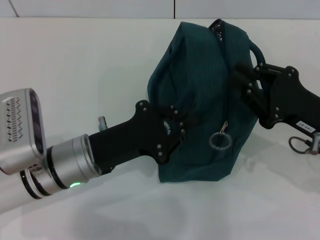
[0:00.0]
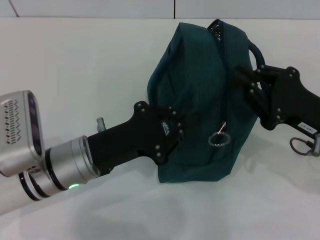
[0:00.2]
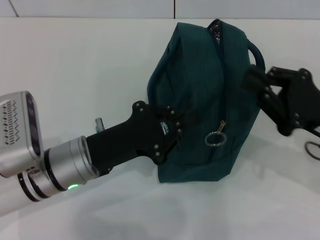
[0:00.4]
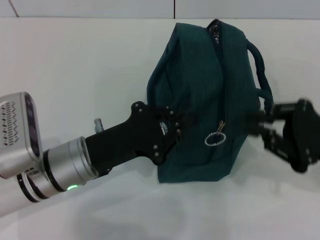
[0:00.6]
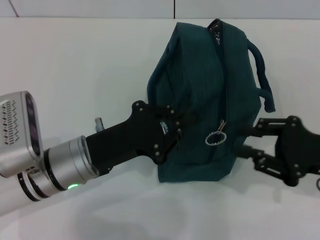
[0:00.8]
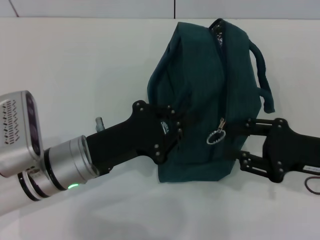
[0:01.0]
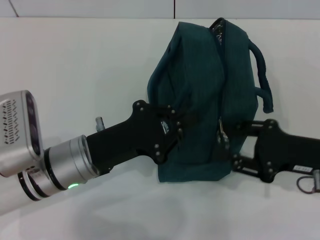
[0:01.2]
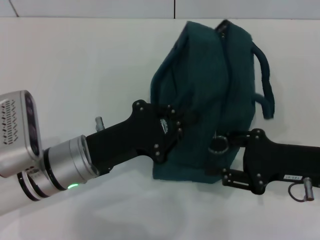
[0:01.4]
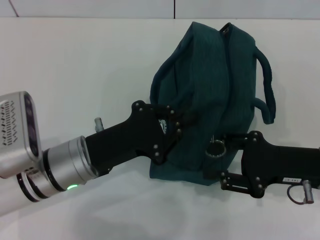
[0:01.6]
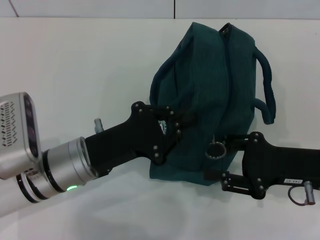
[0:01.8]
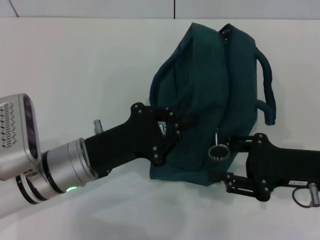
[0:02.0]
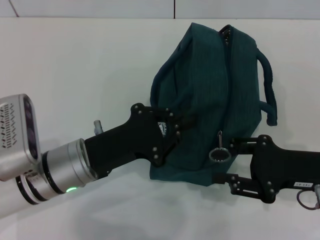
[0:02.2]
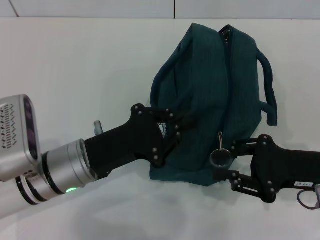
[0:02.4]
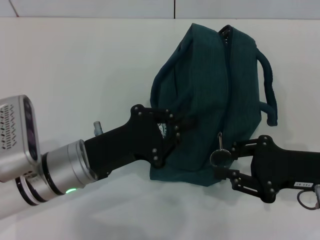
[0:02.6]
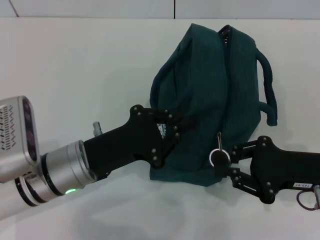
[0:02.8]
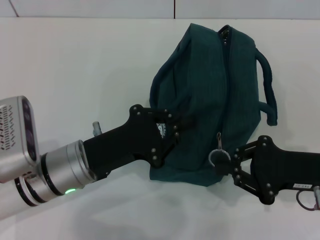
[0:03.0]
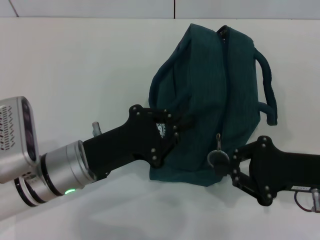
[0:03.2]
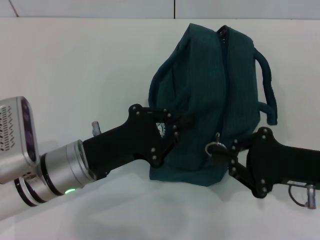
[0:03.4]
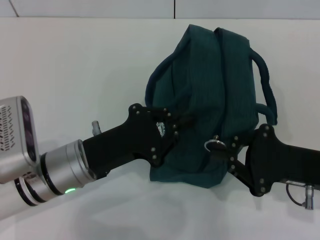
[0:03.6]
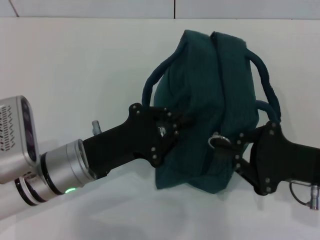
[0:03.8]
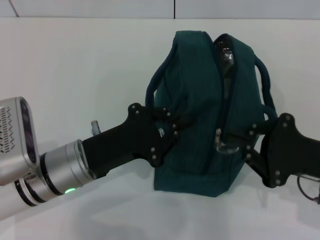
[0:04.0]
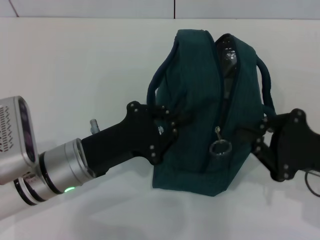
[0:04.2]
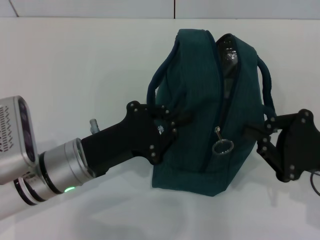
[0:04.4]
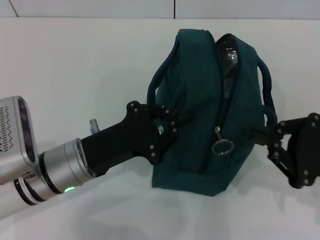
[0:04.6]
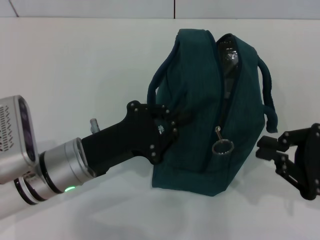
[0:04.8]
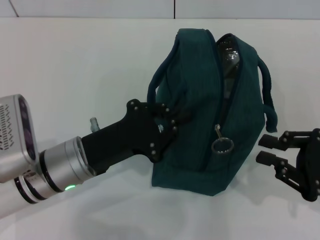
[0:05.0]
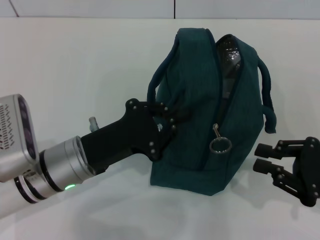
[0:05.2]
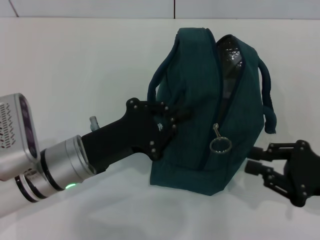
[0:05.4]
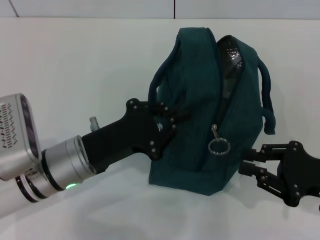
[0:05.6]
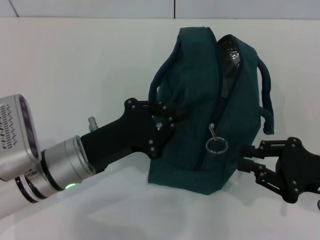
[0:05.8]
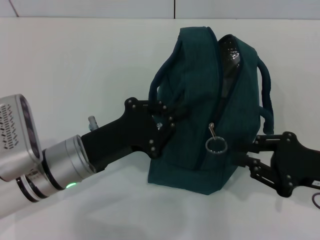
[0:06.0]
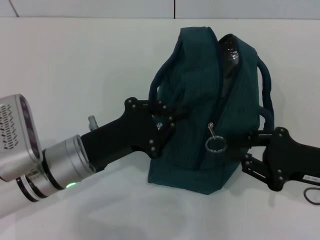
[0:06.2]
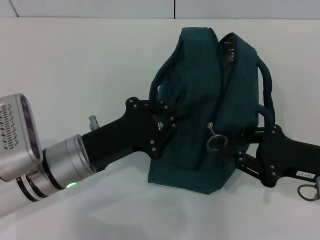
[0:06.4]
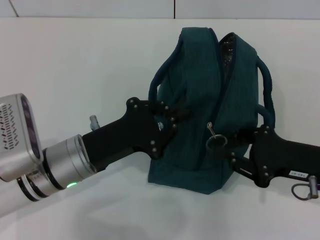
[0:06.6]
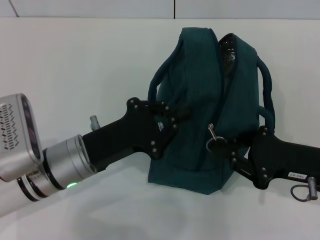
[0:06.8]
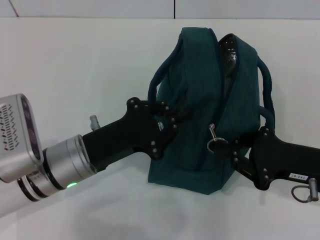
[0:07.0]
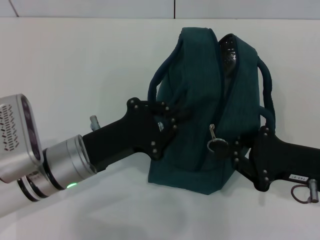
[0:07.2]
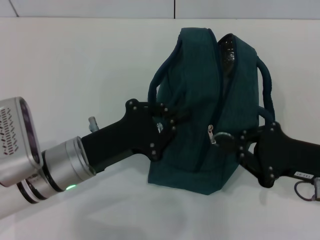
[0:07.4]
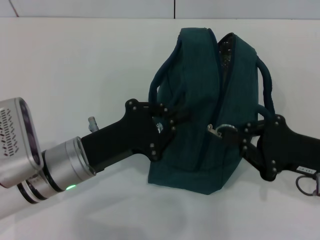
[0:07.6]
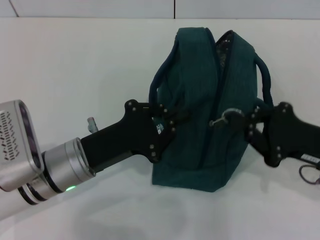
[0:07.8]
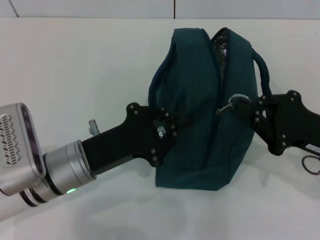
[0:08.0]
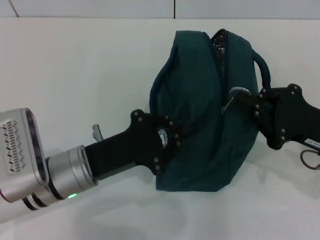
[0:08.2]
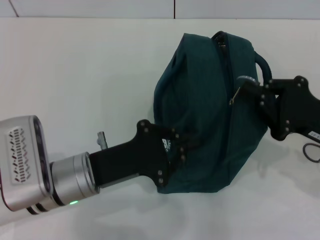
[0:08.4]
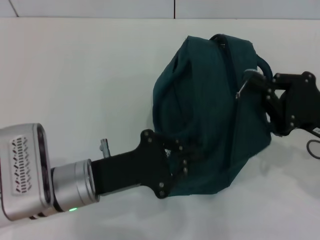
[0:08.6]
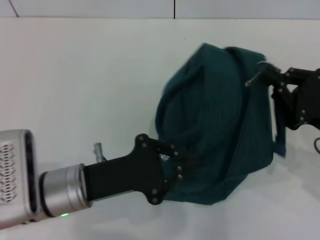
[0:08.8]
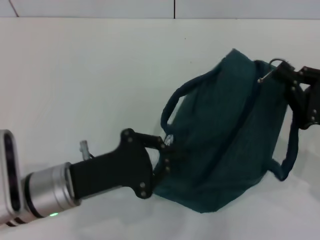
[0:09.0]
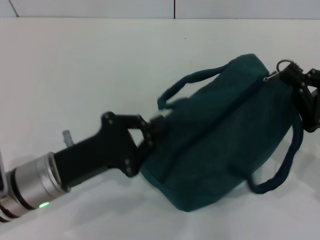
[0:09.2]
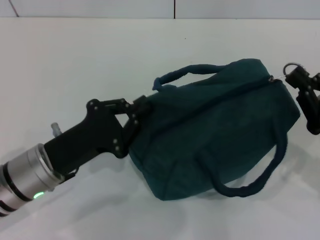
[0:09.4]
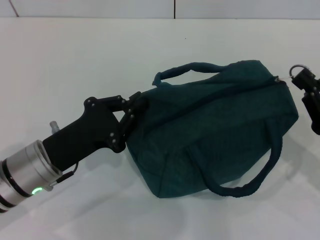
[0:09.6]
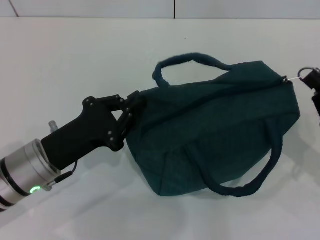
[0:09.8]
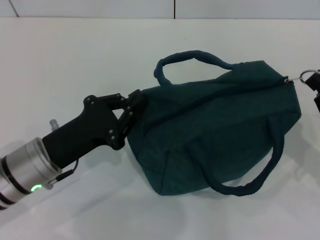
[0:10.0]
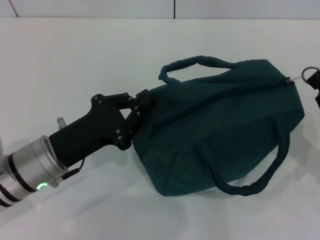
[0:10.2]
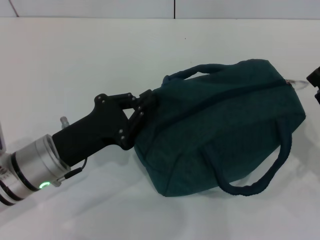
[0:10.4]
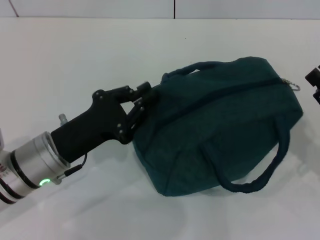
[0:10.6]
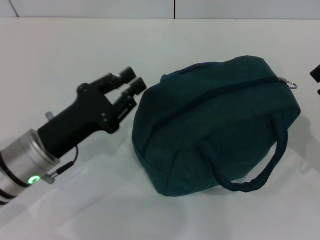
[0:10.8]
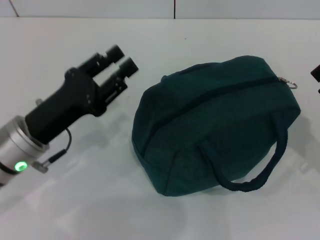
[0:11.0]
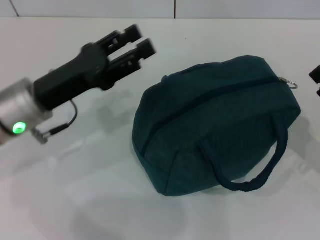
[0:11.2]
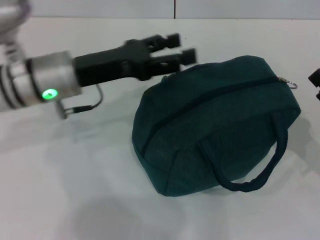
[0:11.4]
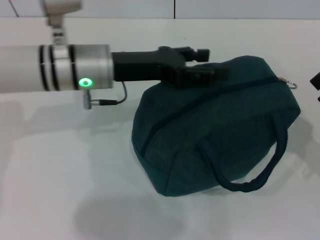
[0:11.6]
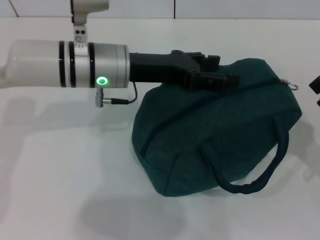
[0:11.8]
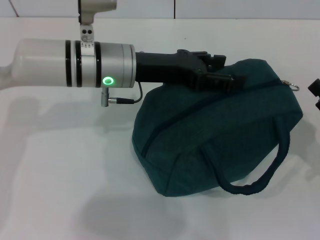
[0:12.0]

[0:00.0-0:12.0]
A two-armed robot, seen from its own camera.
Step, 0:00.0 to 0:10.4: Zip up the lunch bag with your right hand.
0:01.6 to 0:03.0: The right gripper closes up.
0:06.0 to 0:07.6: The grippers make only small movements.
0:10.4 to 0:12.0: The left gripper goes some 15 cm forward, to the right and upward, and opens; the right gripper opens its fingers.

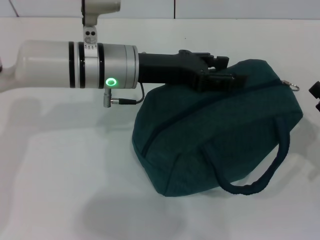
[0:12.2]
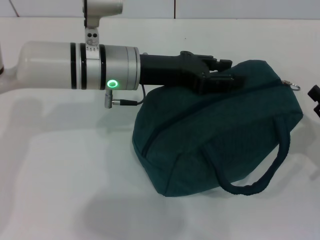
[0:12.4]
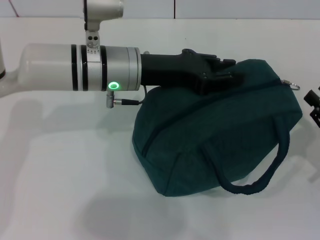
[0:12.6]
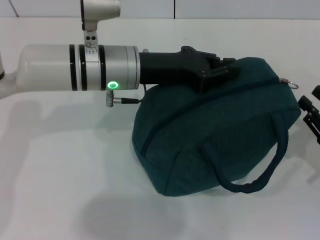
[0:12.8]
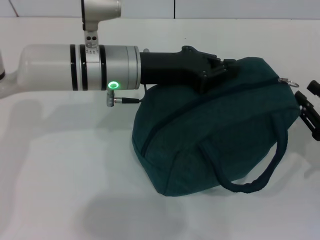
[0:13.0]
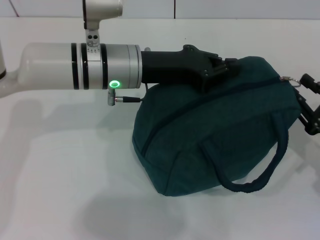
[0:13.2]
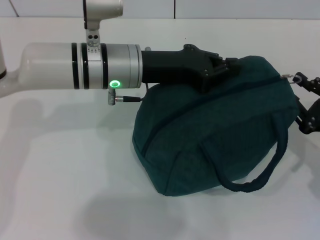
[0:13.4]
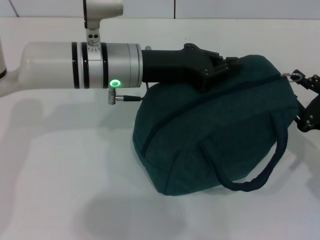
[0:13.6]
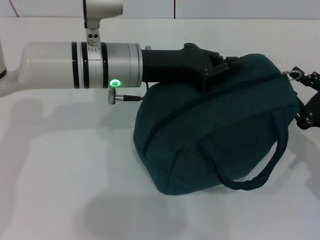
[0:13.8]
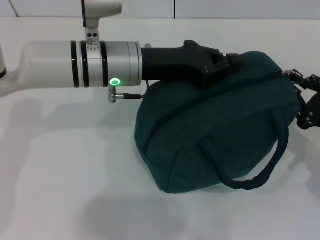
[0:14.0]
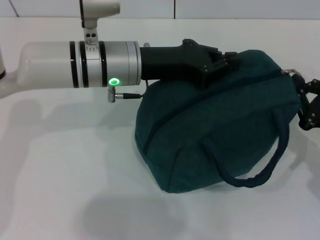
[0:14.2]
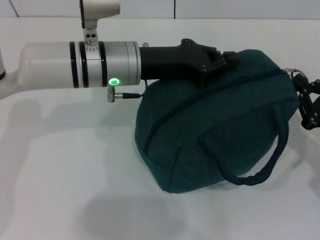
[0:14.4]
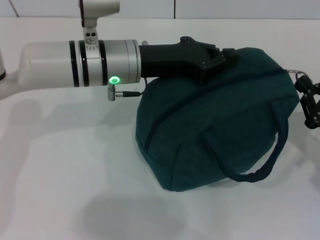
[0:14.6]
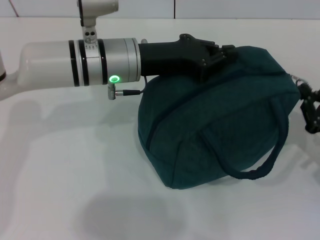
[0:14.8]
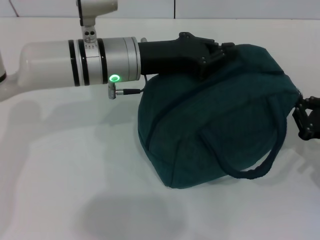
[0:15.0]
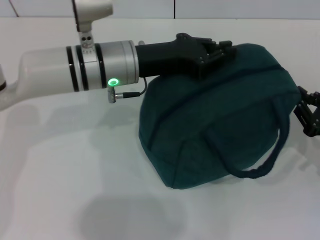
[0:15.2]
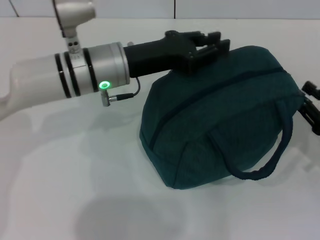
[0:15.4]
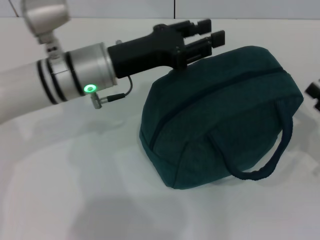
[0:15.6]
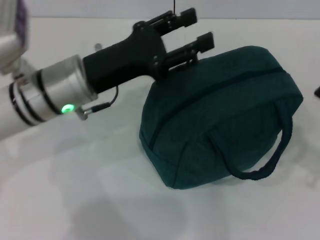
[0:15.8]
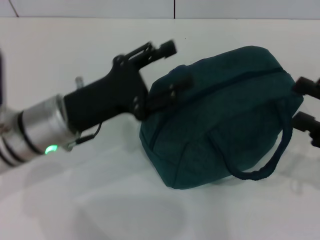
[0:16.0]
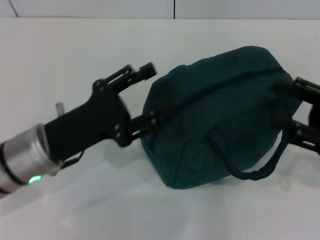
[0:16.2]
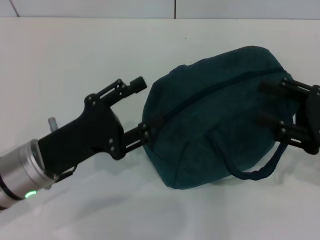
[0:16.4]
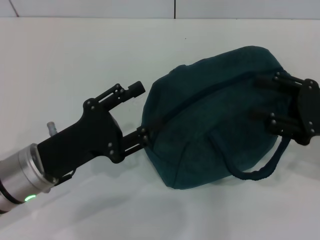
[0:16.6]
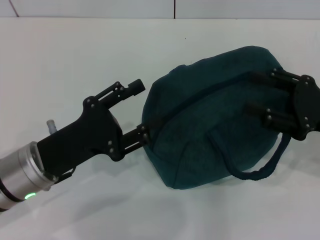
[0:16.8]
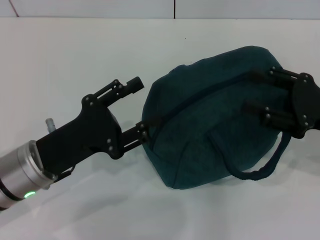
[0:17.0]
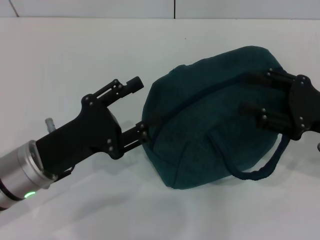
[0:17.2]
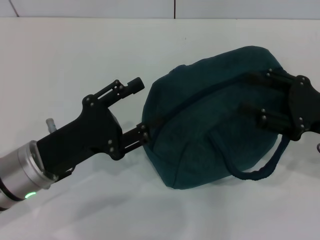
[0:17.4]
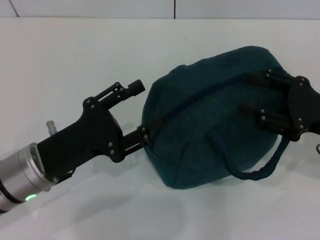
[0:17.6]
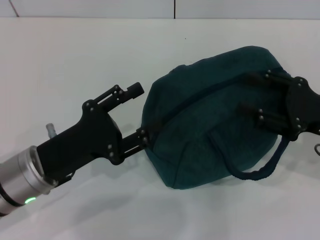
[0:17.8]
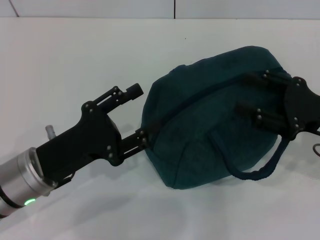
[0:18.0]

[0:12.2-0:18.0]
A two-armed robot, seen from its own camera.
0:12.2 to 0:13.6: The left gripper closes its fingers.
0:13.6 to 0:15.0: The right gripper closes its fingers.
0:15.0 to 0:16.6: The left gripper shifts approximately 20 cm backward, to the left and downward, and opens its fingers. The right gripper heads upward, covering approximately 10 cm, and opens up.
0:16.6 to 0:18.0: Neither gripper changes place.
